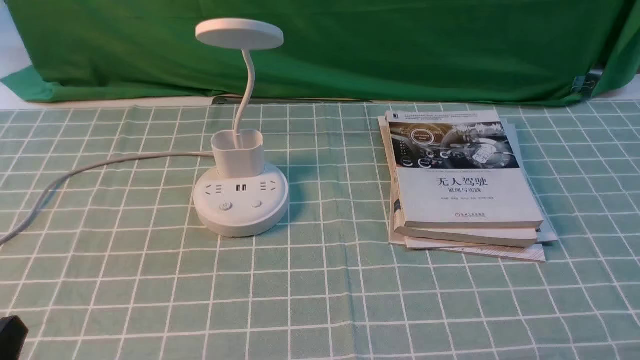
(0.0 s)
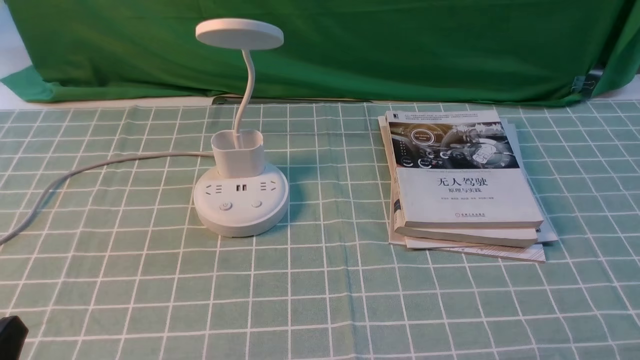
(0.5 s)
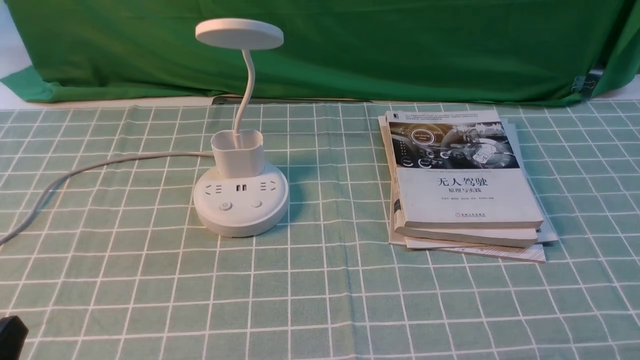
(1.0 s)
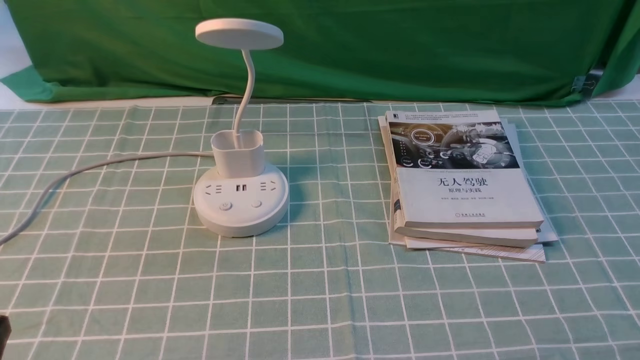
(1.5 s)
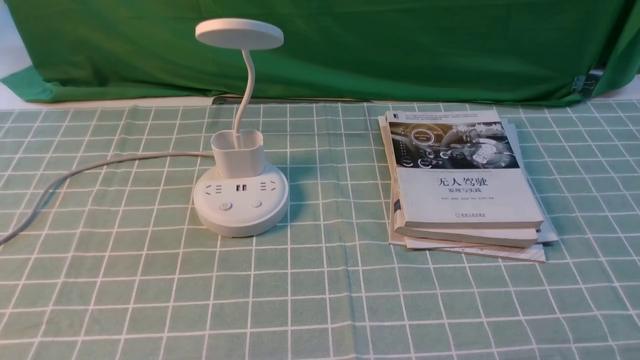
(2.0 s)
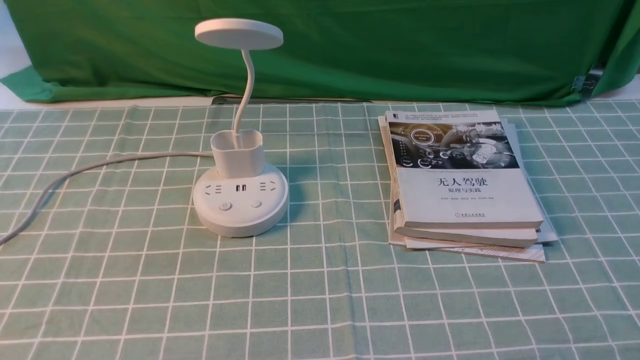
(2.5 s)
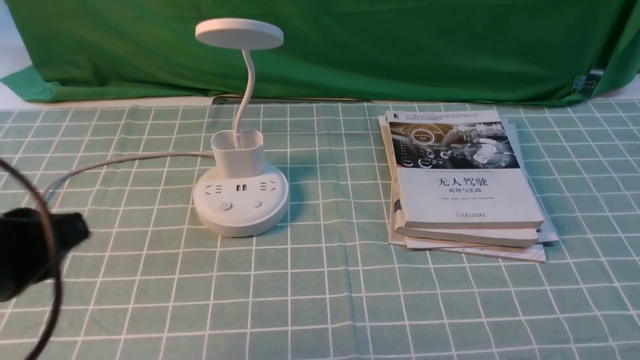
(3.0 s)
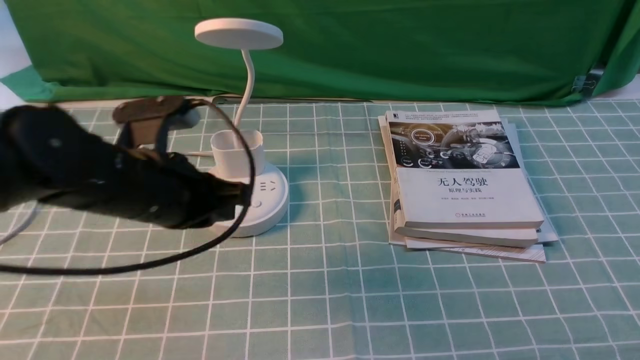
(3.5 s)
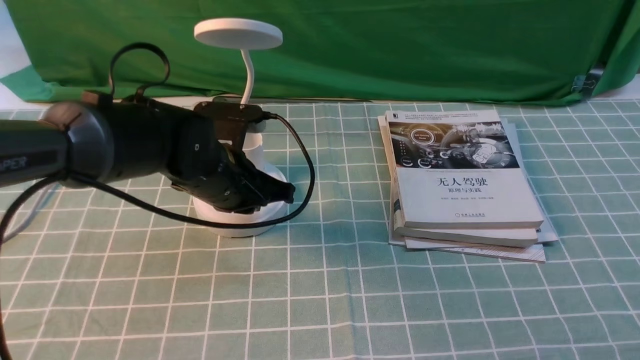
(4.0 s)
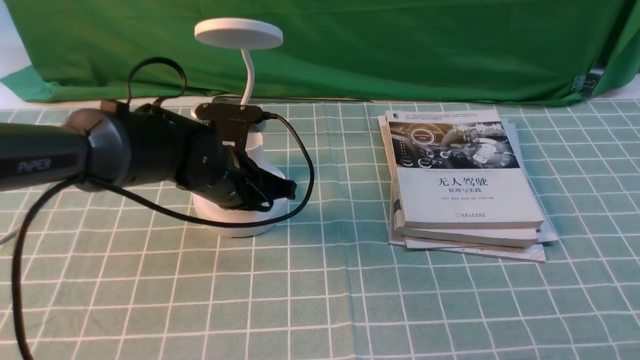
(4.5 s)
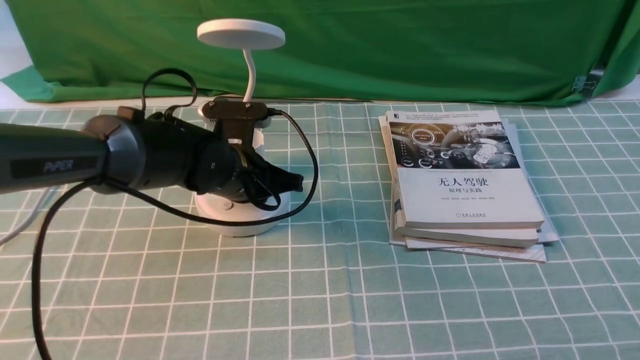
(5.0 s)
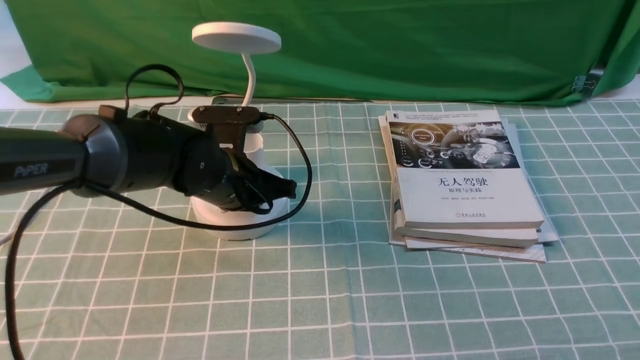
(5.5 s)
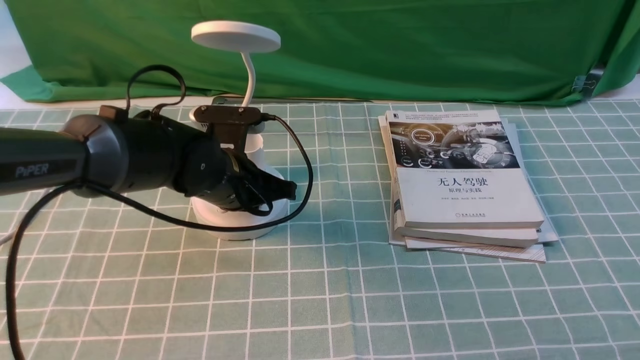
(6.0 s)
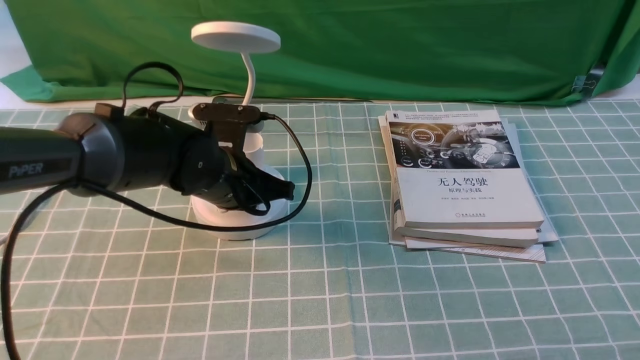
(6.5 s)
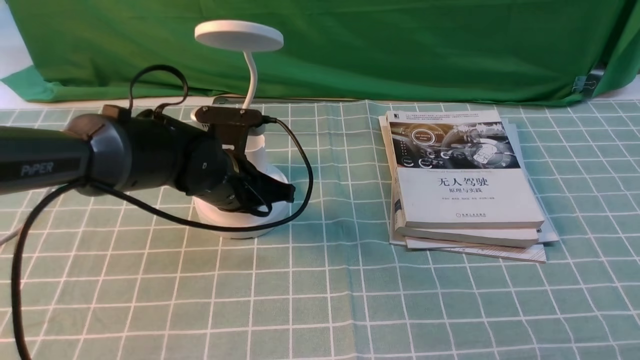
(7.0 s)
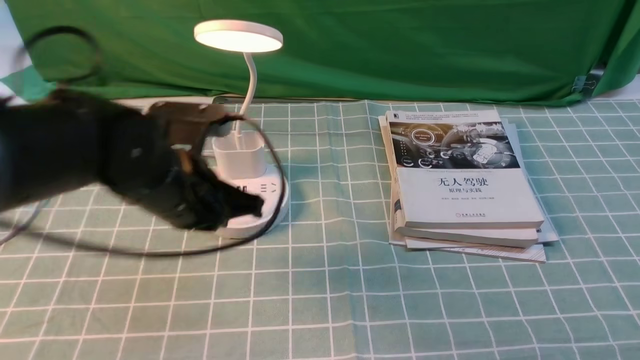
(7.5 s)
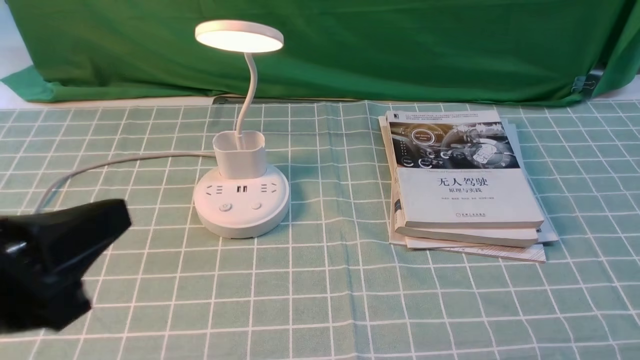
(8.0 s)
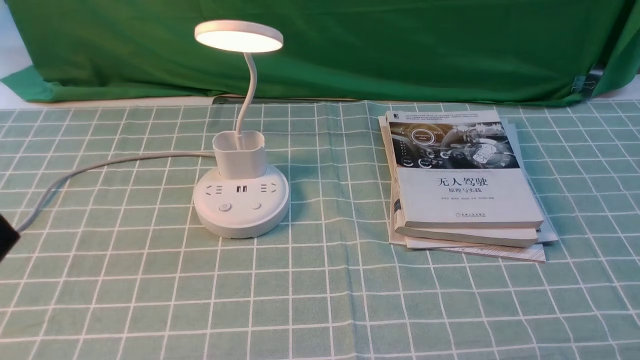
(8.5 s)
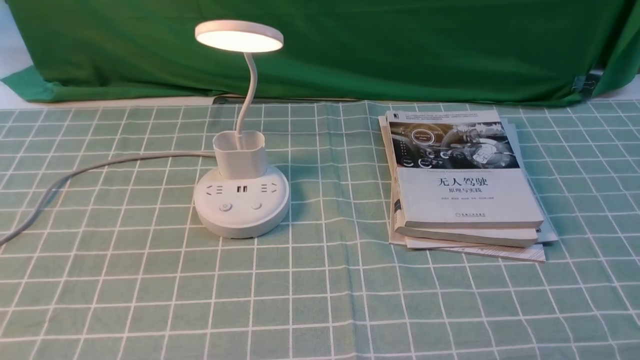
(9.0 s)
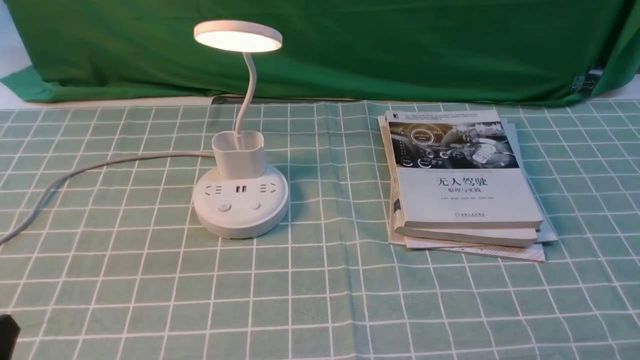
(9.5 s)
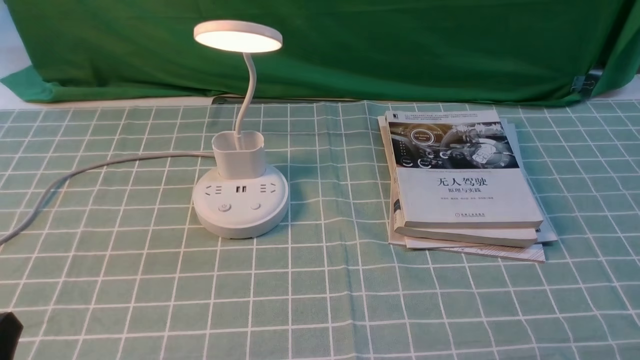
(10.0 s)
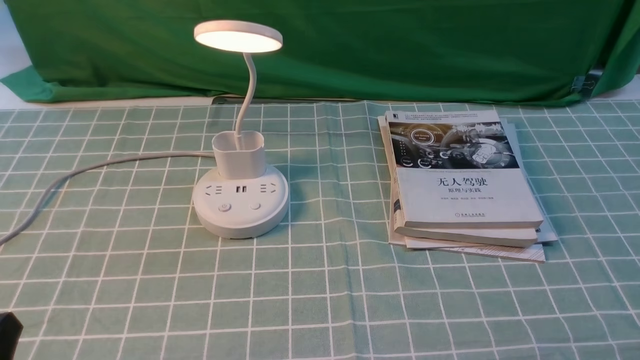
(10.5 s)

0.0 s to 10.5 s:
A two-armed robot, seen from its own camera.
Step, 0.0 to 7.0 s: use the left arm to press the button switch on the lamp holder.
2.0 to 4.0 s: The left gripper shifts approximately 35 cm forward and to the right, and closes.
4.0 to 6.5 s: The grippers stay close to where they were, moving slightly.
6.5 to 8.5 s: The left gripper goes some 40 cm backward, upward and to the left.
8.5 to 10.5 s: The left gripper heads downward, covering about 15 cm, and opens its fingers.

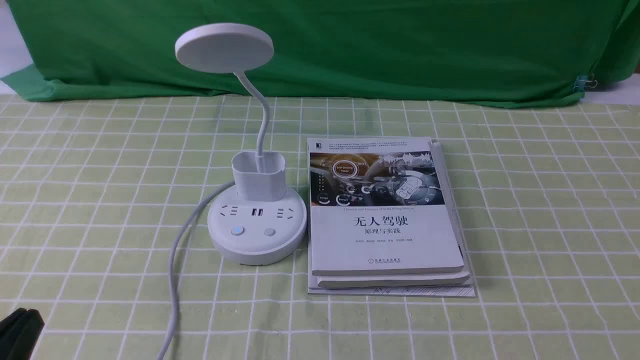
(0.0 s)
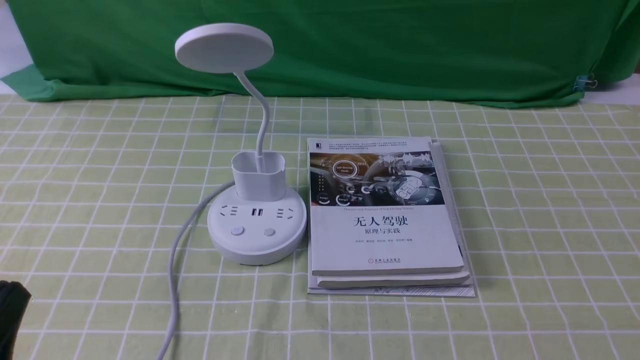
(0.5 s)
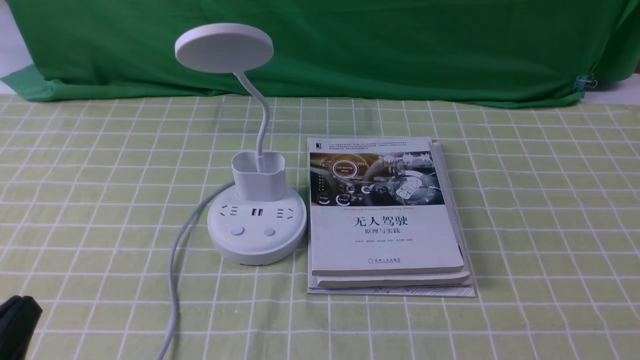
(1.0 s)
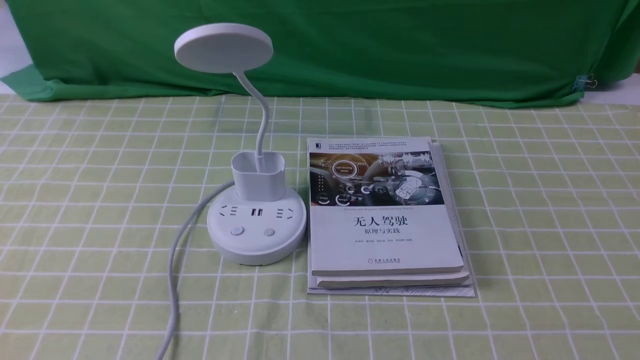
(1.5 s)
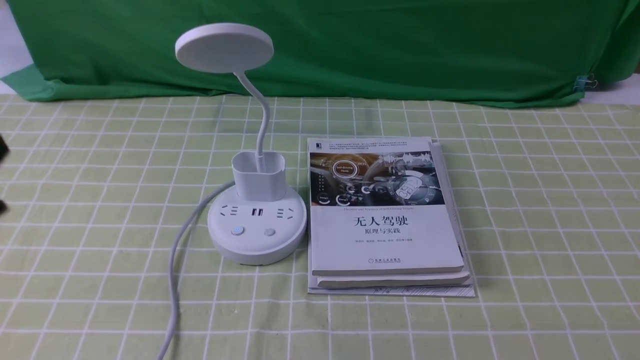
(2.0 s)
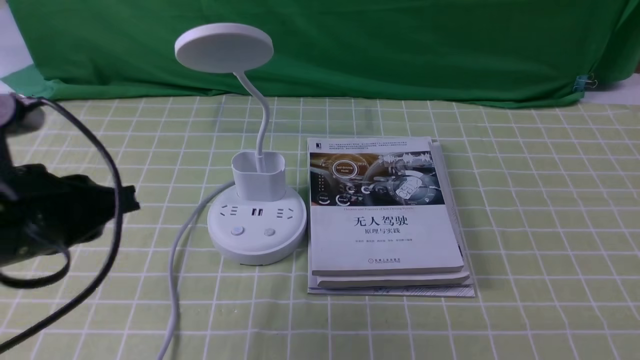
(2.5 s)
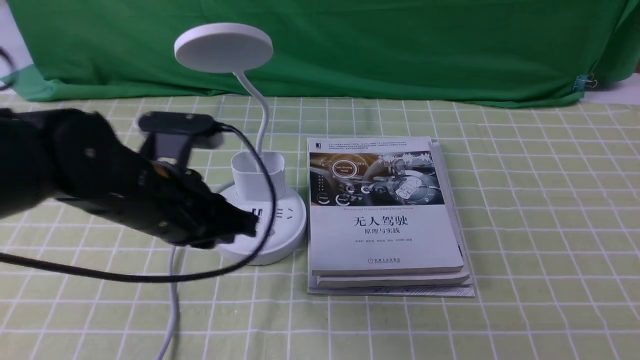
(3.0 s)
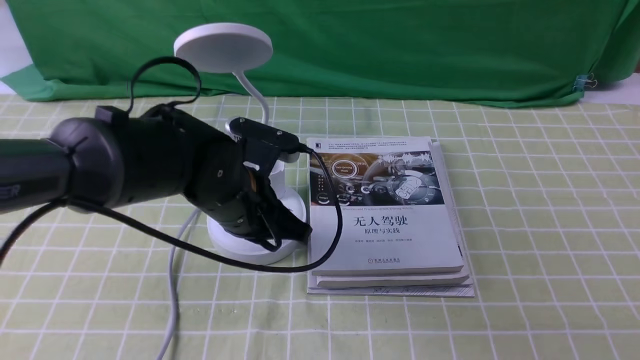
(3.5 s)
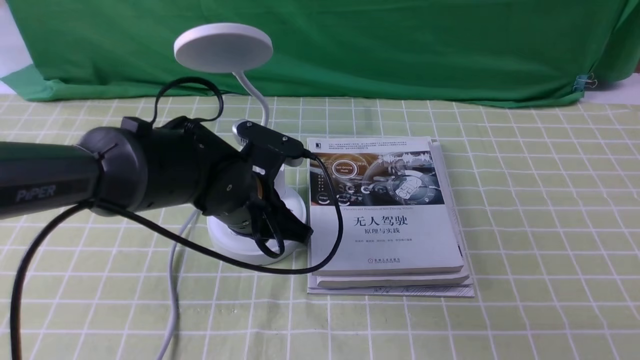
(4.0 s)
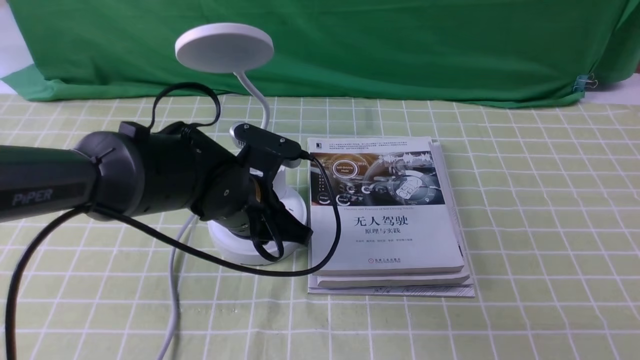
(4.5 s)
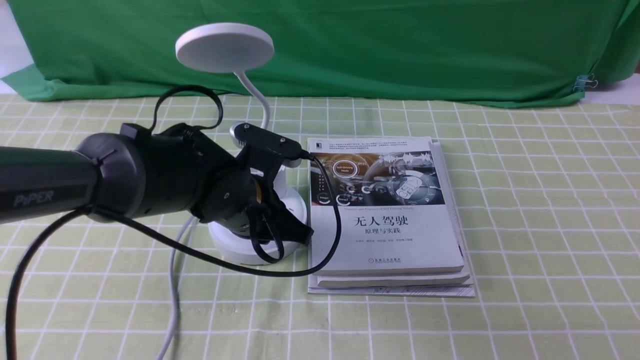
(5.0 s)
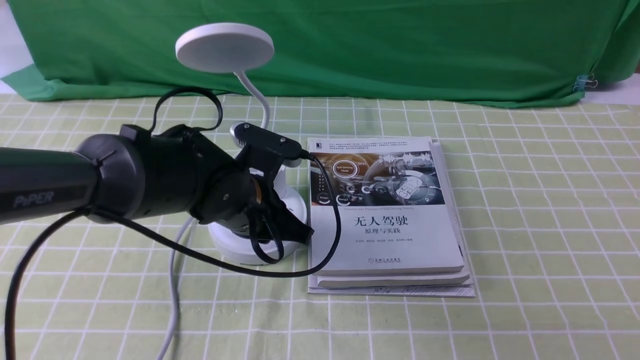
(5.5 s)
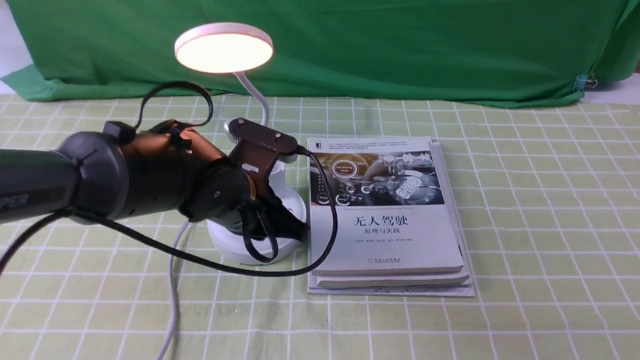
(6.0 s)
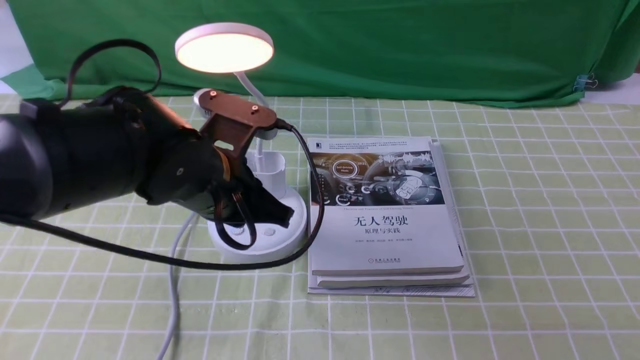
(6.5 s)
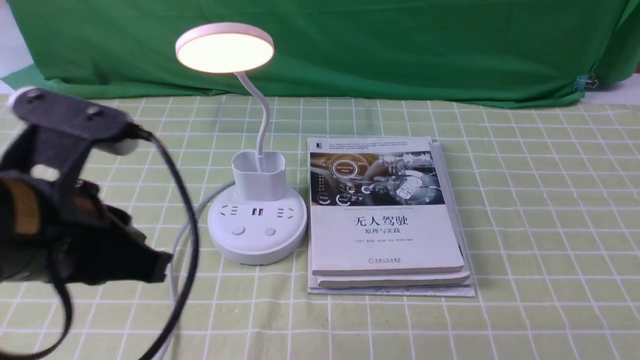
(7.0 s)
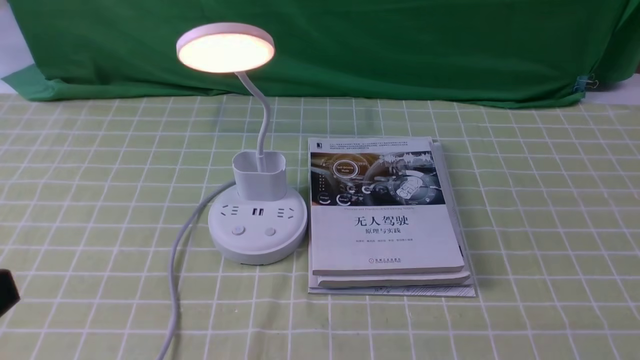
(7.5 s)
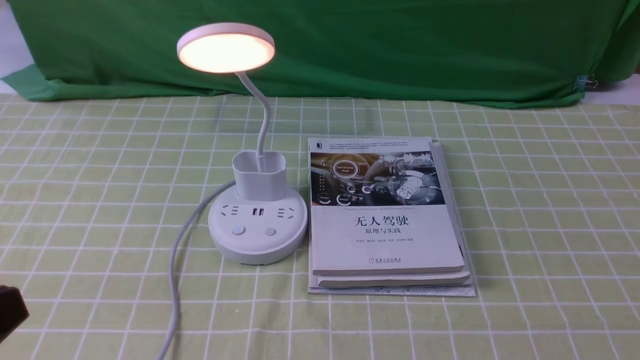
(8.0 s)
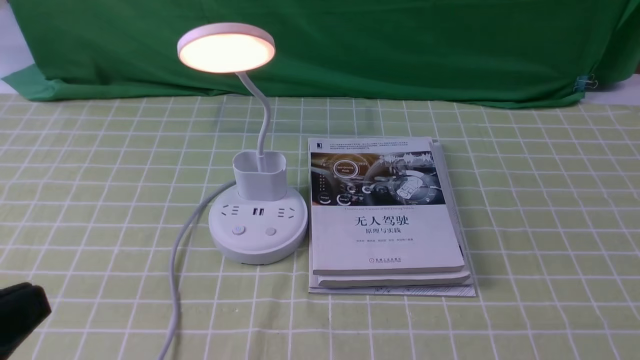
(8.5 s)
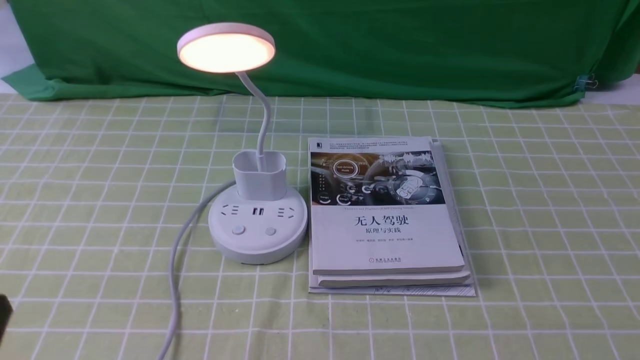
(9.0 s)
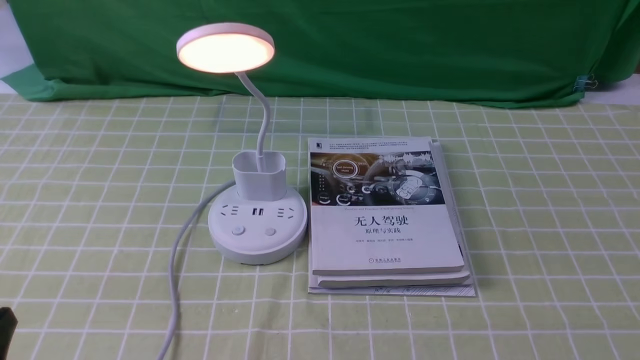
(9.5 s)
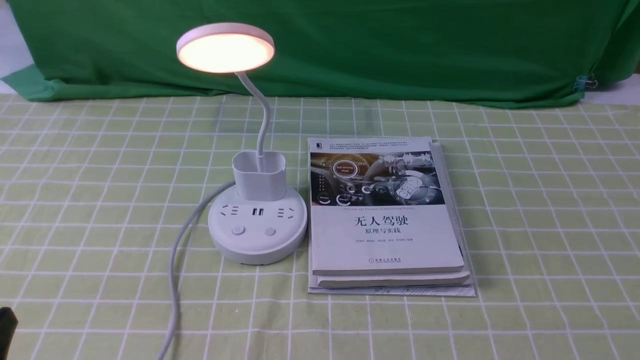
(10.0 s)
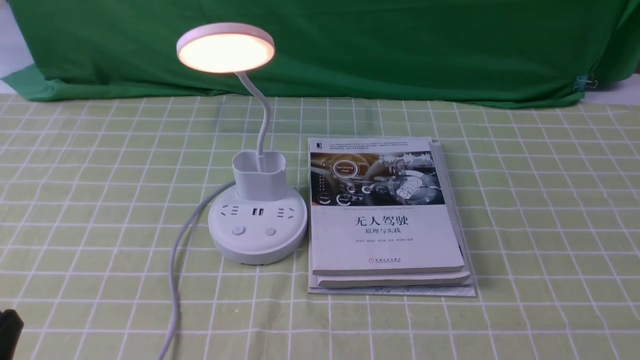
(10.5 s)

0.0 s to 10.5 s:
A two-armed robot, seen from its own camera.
Step, 0.0 to 6.5 s: use the left arm to press the button switch on the lamp holder.
2.0 to 4.0 s: The left gripper travels forward, downward and to the right by some 35 cm.
4.0 to 6.5 s: The left gripper is displaced upward by some 5 cm.
6.5 to 8.5 s: The left gripper shifts about 30 cm backward and to the left.
8.5 to 10.5 s: The left gripper moves downward, some 10 cm, and opens its fingers.
